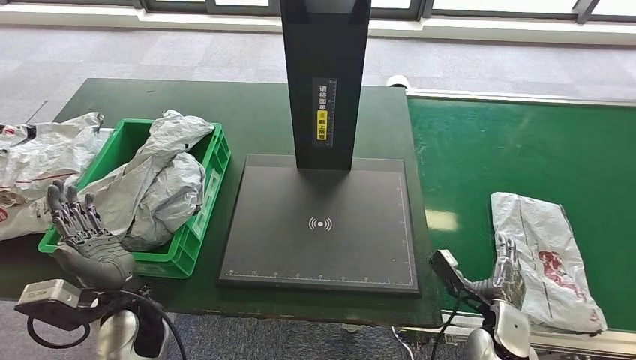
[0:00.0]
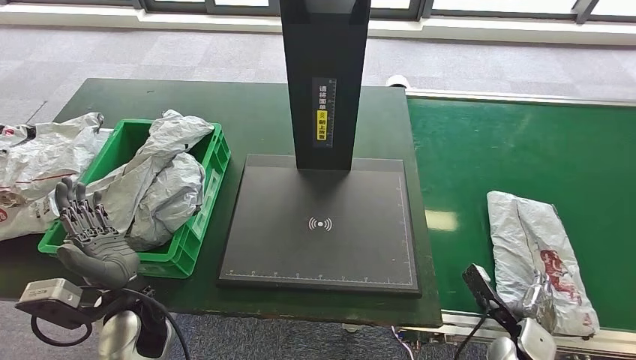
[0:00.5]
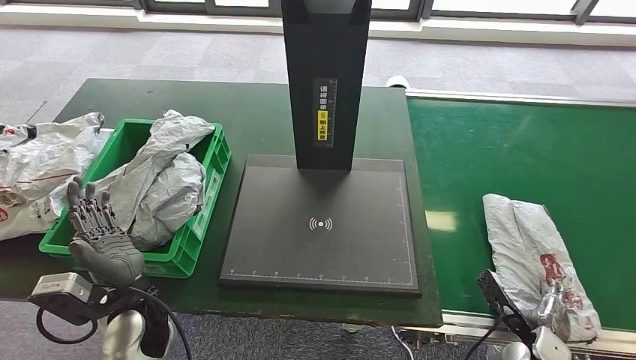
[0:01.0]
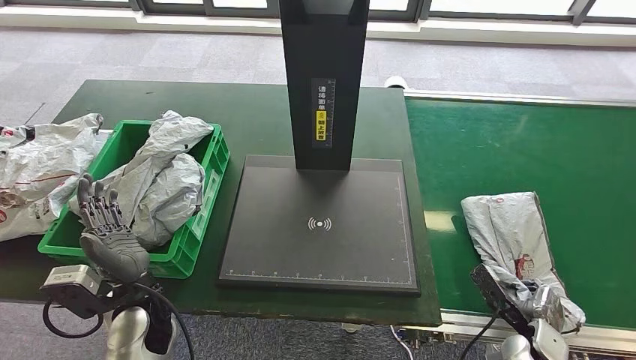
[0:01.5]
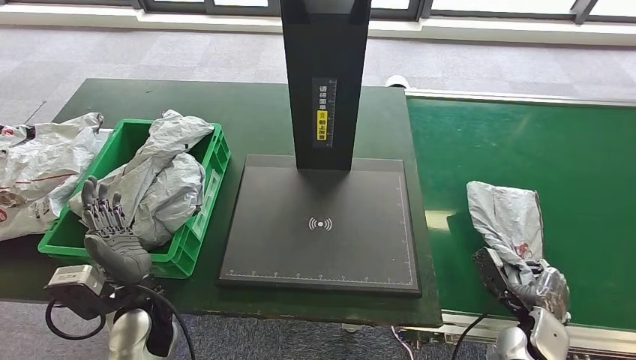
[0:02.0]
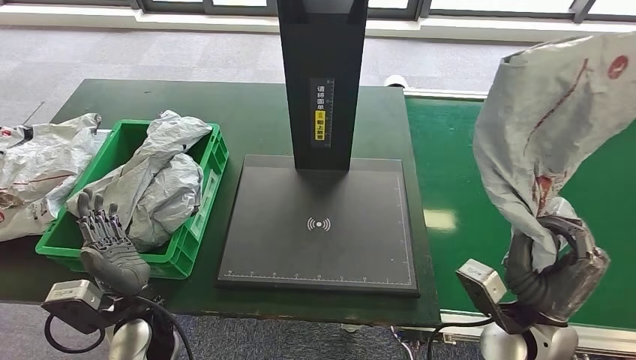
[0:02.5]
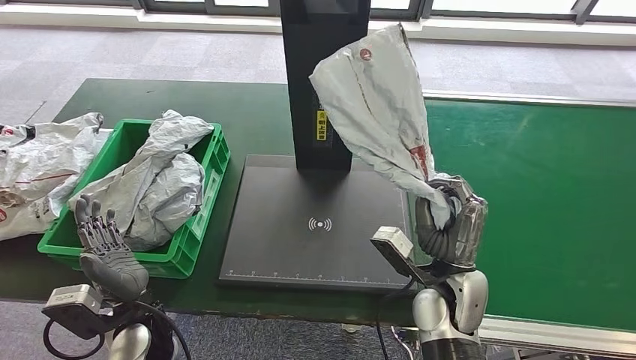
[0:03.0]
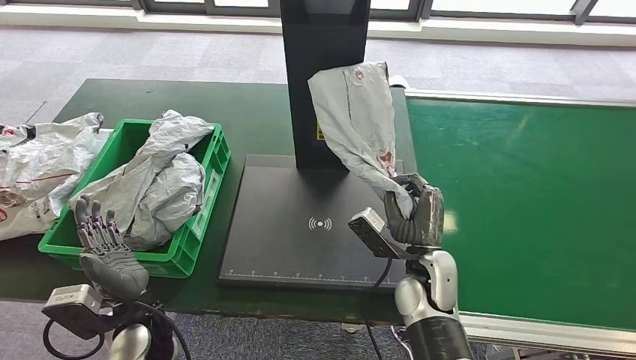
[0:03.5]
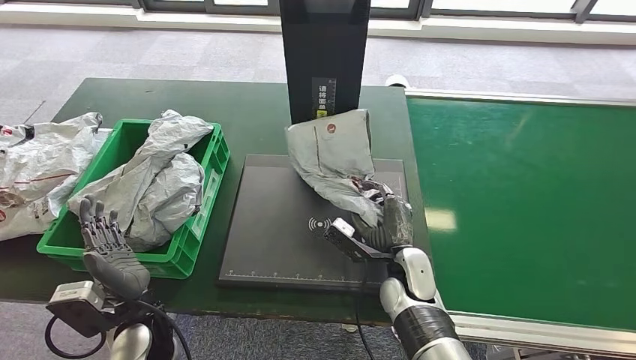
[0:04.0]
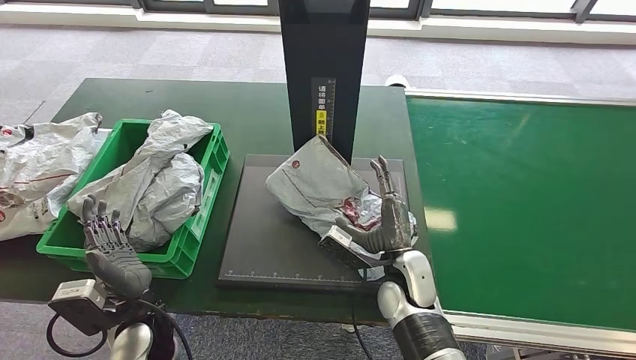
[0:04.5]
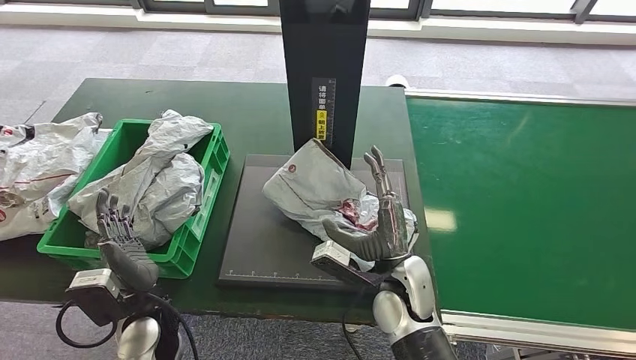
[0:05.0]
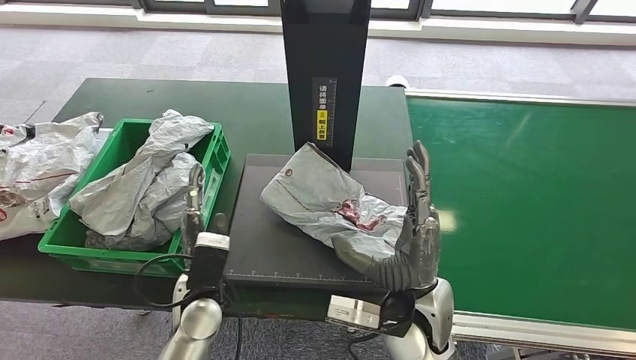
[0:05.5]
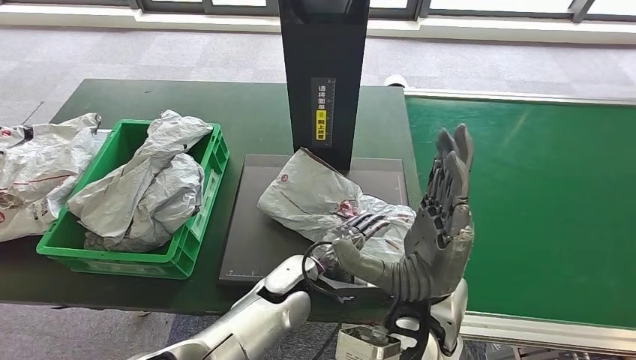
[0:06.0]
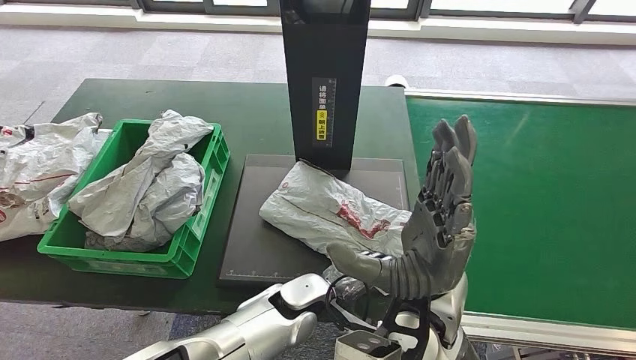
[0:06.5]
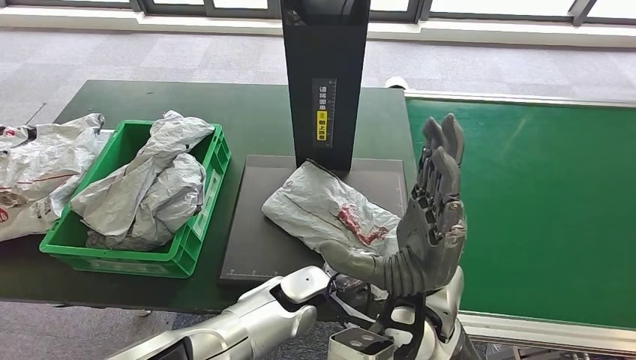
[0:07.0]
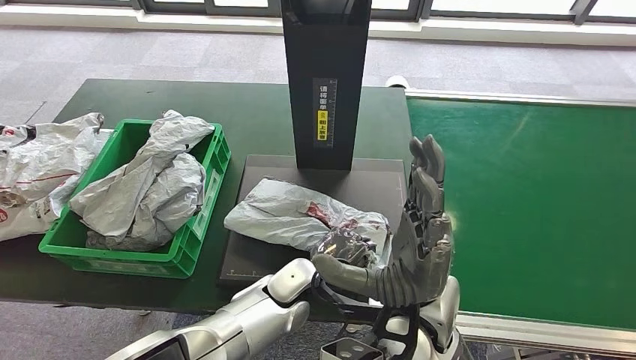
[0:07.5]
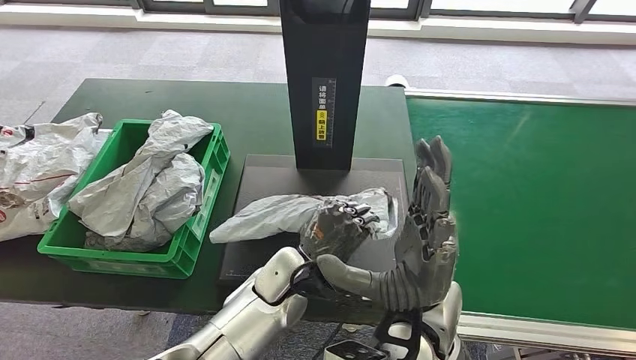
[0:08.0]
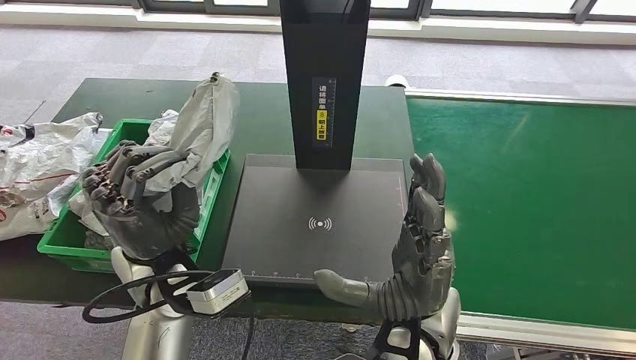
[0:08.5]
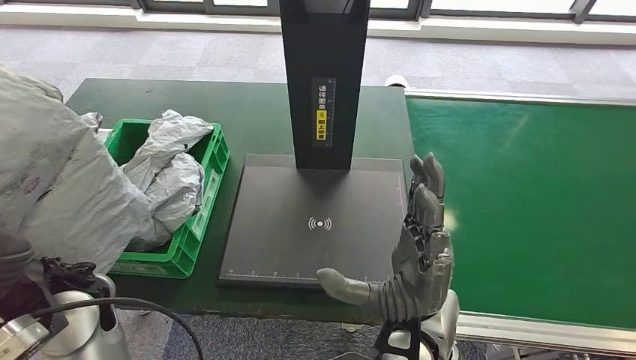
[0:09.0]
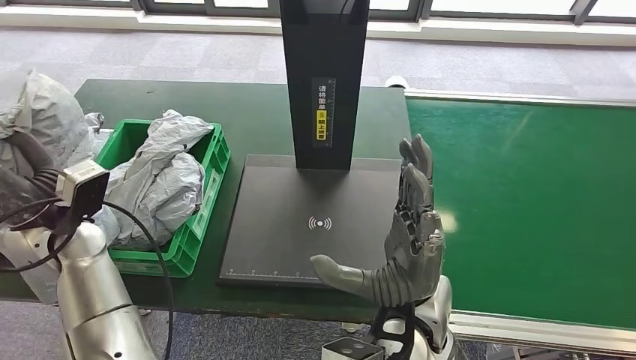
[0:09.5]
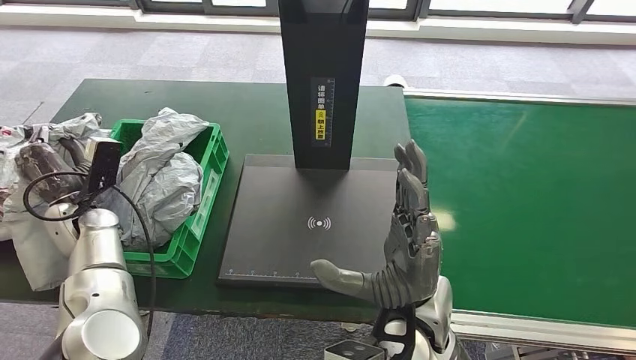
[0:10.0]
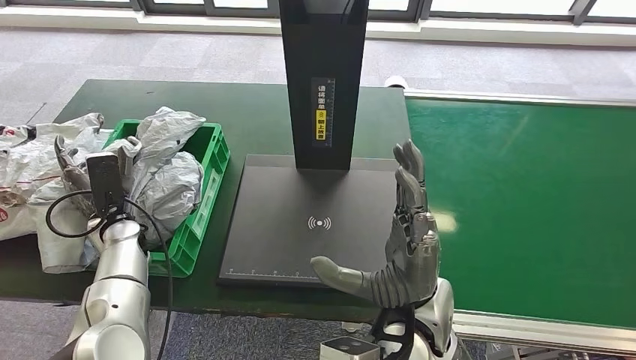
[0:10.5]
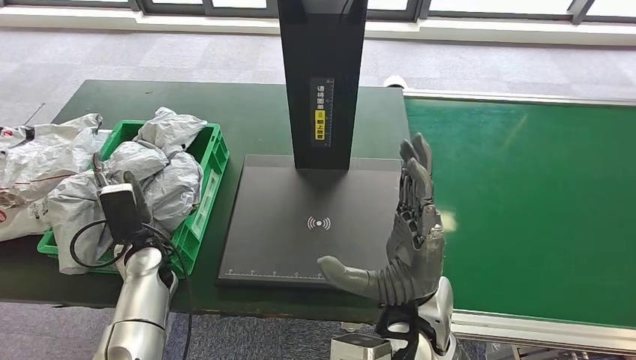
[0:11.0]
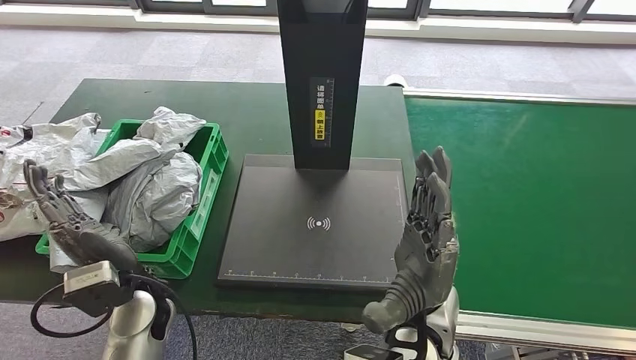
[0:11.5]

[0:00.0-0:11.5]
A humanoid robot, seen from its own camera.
Step, 0:01.5 to 0:03.0: Pick up the parcel from the conveyor belt.
Step, 0:03.5 to 0:05.0: Place the parcel onto the inbound machine.
Step, 0:06.0 to 0:08.5: Pick up the parcel from the inbound machine.
Step, 0:09.0 to 0:11.5: Place the parcel into the delivery box.
0:00.0 to 0:02.0: The right hand shifts about 5 cm to the right.
